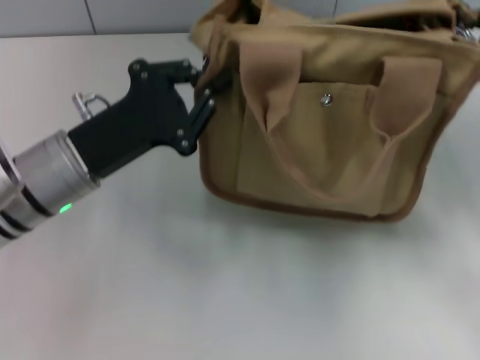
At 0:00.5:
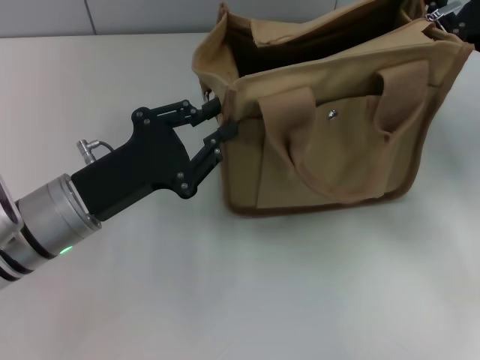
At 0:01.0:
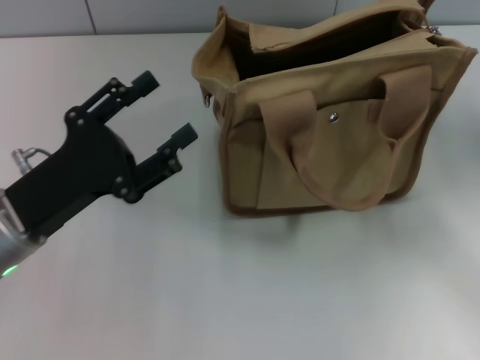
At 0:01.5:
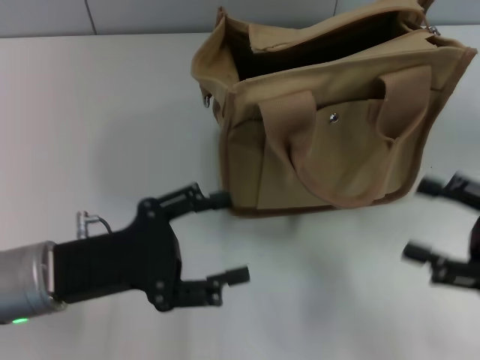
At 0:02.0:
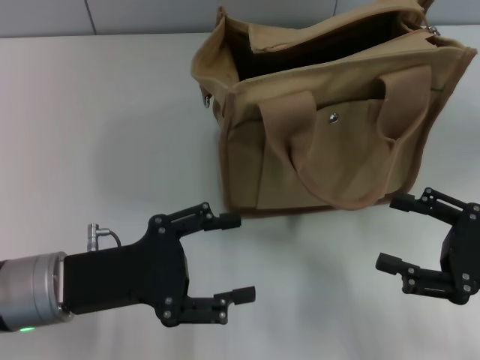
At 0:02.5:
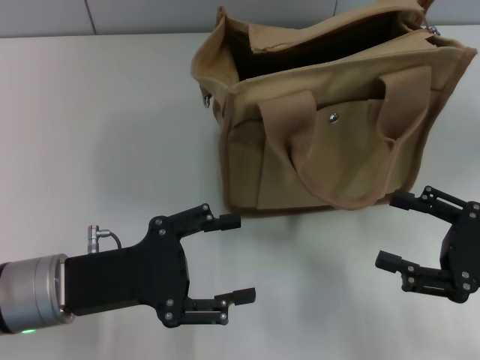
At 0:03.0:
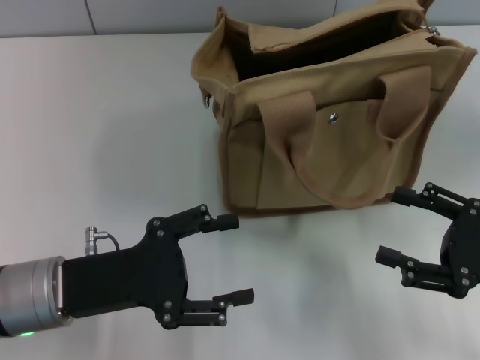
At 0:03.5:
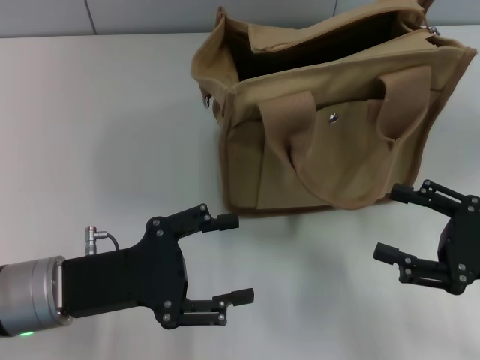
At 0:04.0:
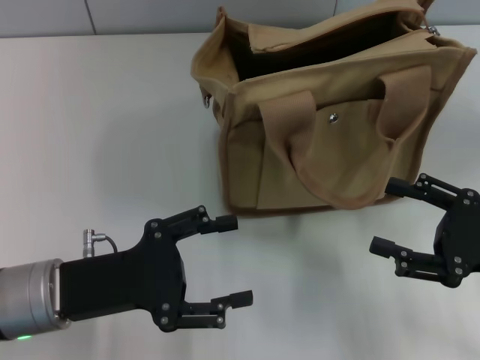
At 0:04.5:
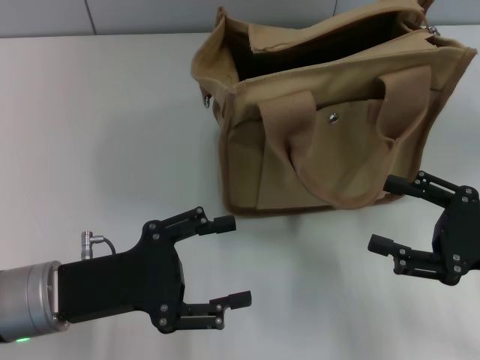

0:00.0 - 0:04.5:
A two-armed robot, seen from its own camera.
Step, 0:00.0 - 0:00.5: Grab the bag with your left hand.
0:00.0 - 0:02.0: The left gripper is displaced backward by roughly 5 cm, and opens; the right gripper heads backward, covering approximately 10 cm, and opens up.
0:02.0 - 0:04.5: The grippers stay close to where they were, moving slightly.
